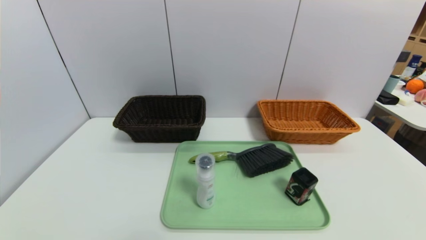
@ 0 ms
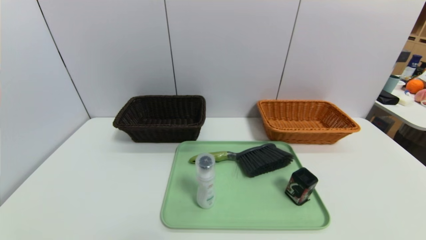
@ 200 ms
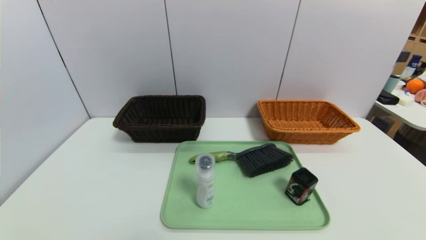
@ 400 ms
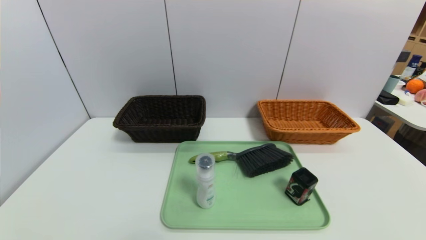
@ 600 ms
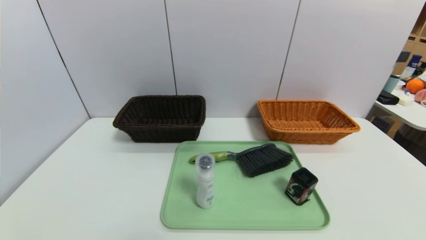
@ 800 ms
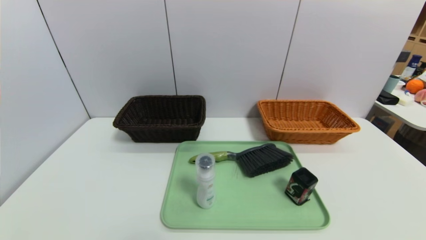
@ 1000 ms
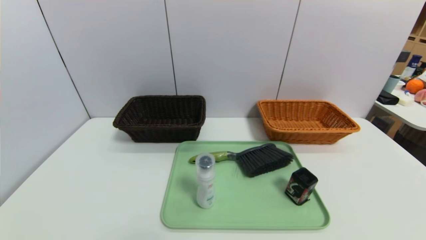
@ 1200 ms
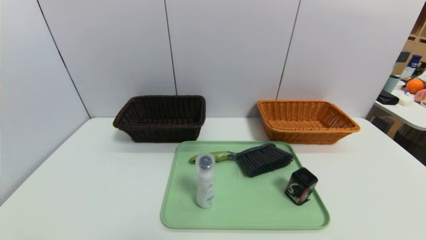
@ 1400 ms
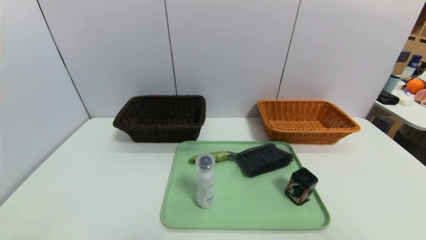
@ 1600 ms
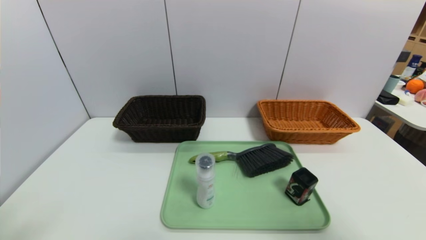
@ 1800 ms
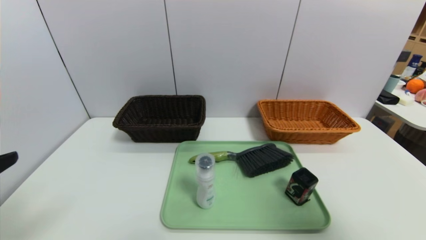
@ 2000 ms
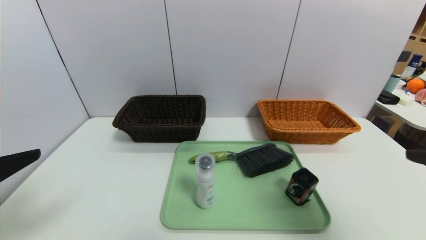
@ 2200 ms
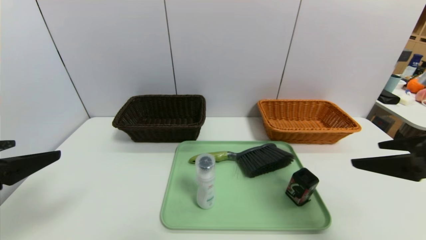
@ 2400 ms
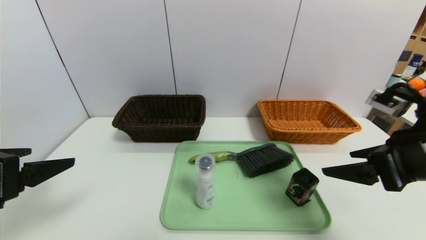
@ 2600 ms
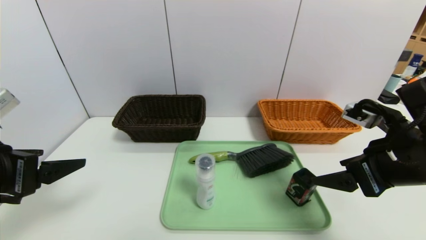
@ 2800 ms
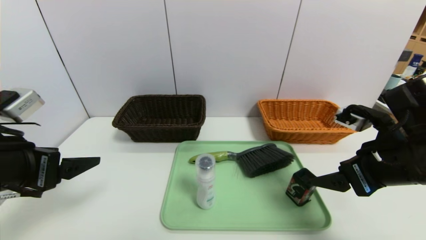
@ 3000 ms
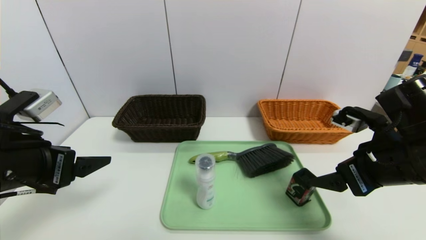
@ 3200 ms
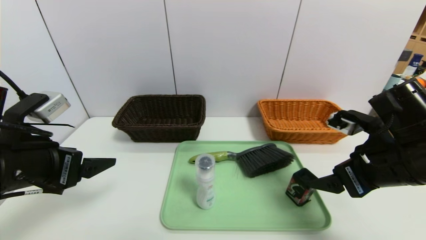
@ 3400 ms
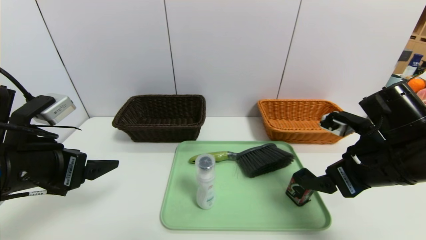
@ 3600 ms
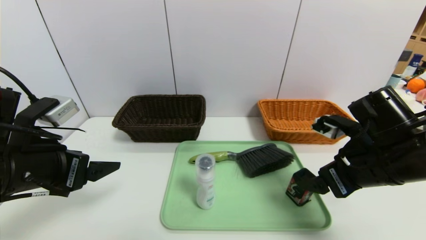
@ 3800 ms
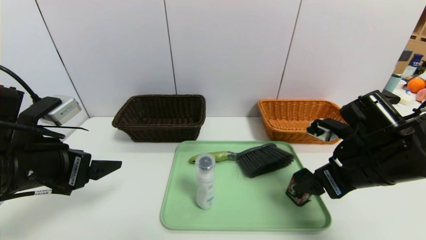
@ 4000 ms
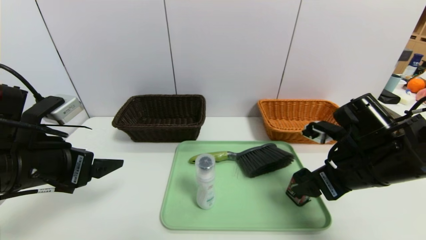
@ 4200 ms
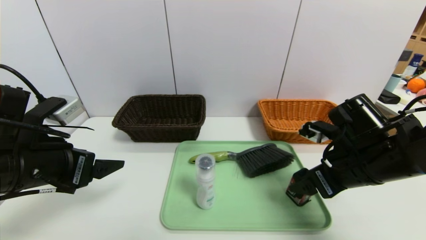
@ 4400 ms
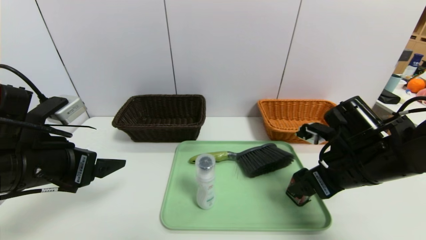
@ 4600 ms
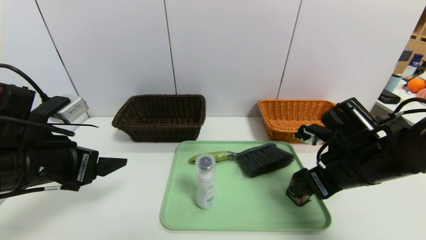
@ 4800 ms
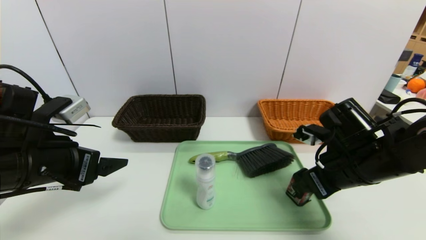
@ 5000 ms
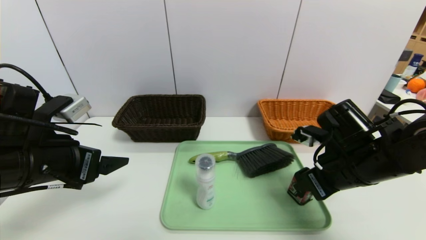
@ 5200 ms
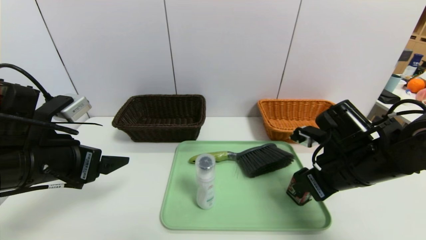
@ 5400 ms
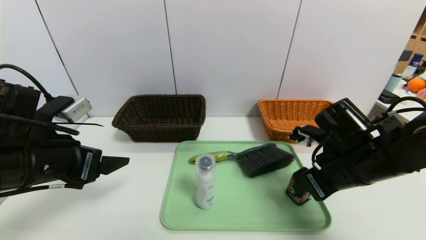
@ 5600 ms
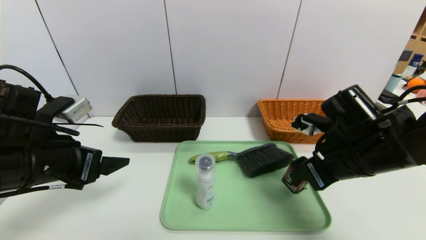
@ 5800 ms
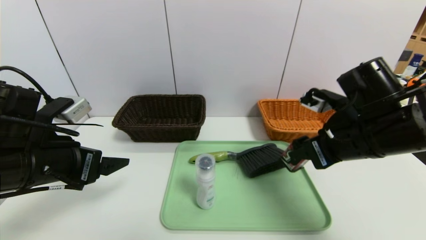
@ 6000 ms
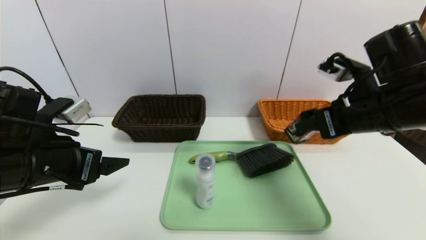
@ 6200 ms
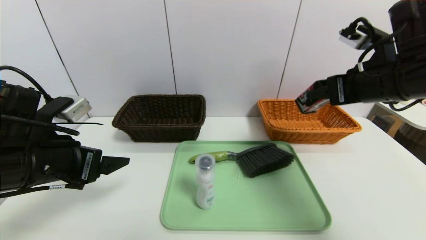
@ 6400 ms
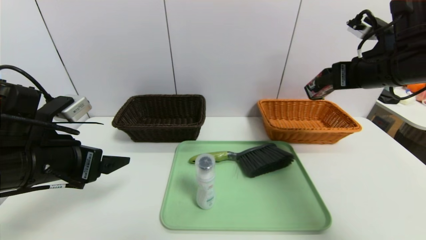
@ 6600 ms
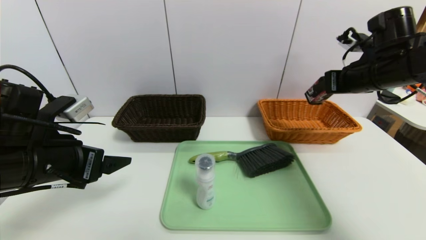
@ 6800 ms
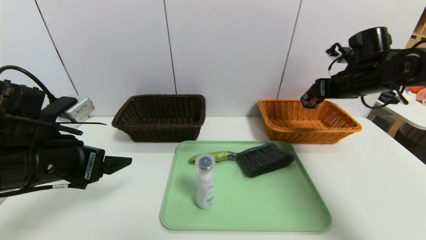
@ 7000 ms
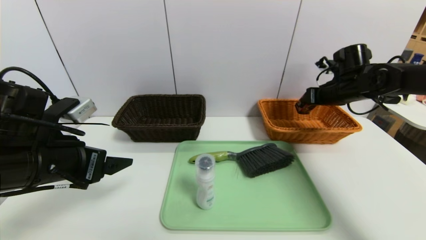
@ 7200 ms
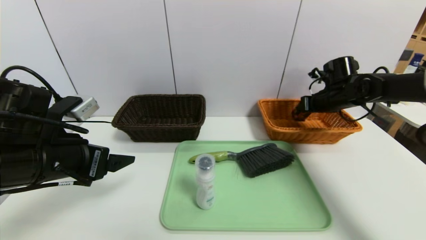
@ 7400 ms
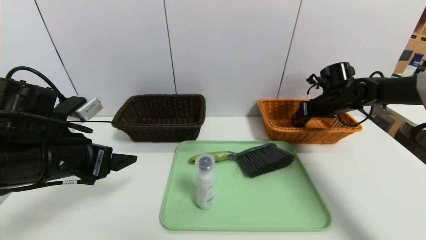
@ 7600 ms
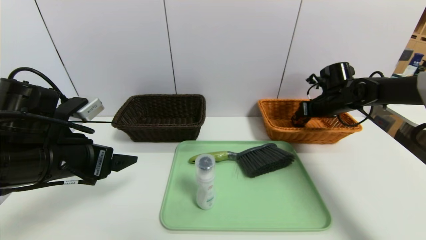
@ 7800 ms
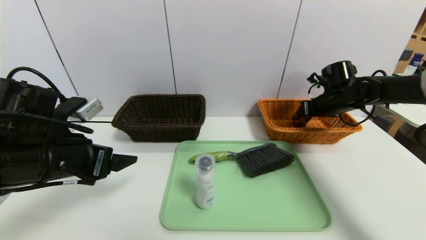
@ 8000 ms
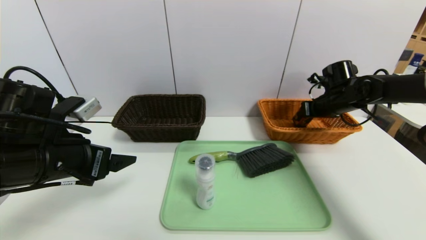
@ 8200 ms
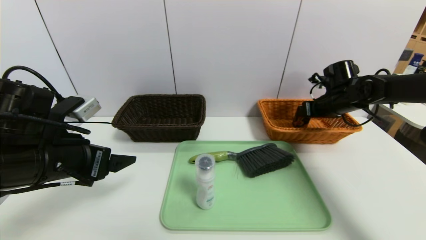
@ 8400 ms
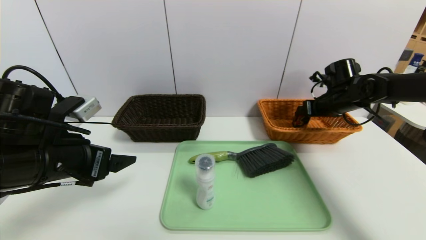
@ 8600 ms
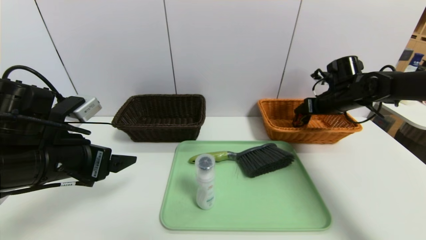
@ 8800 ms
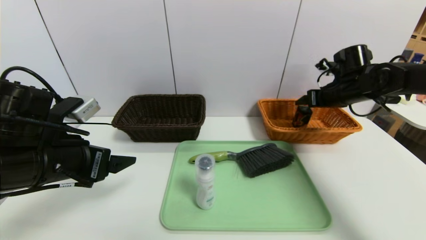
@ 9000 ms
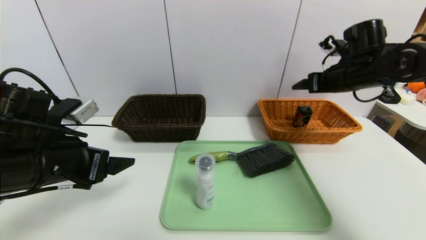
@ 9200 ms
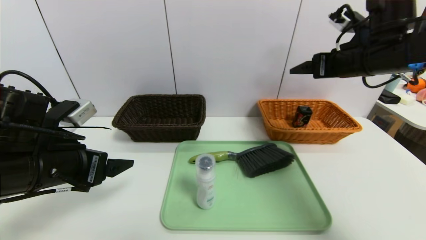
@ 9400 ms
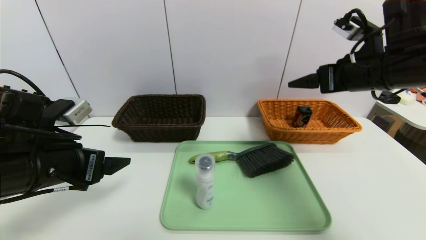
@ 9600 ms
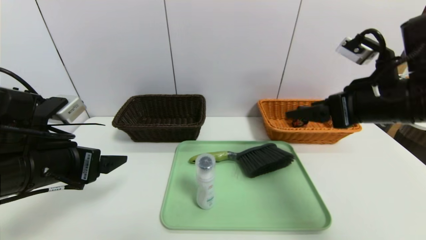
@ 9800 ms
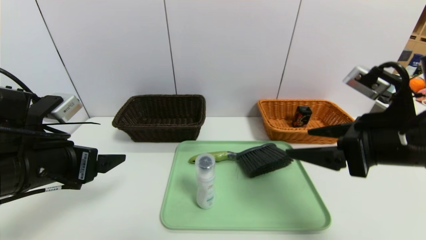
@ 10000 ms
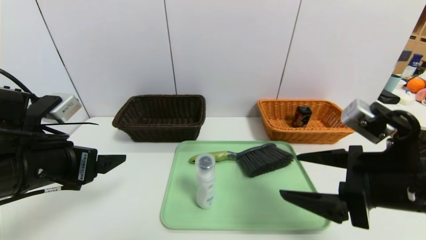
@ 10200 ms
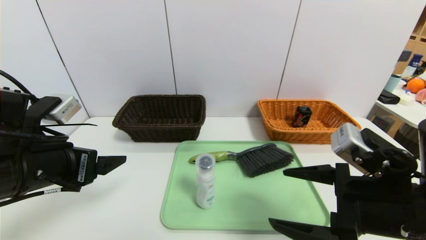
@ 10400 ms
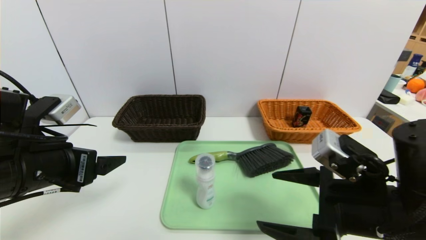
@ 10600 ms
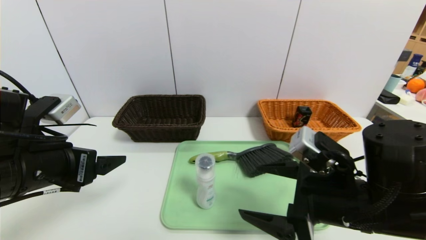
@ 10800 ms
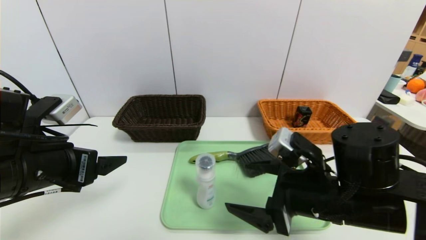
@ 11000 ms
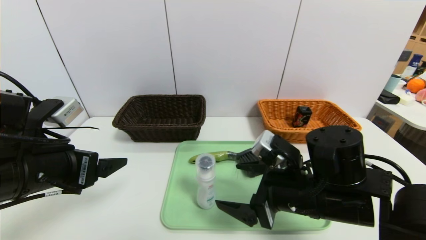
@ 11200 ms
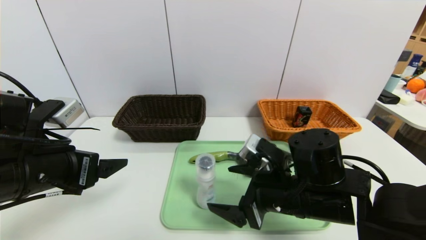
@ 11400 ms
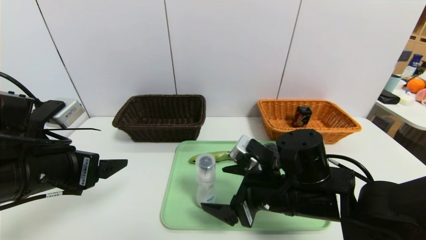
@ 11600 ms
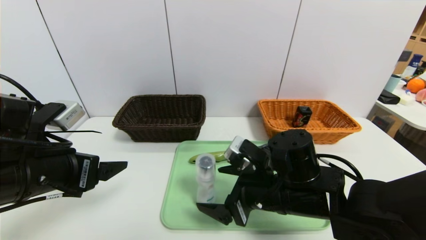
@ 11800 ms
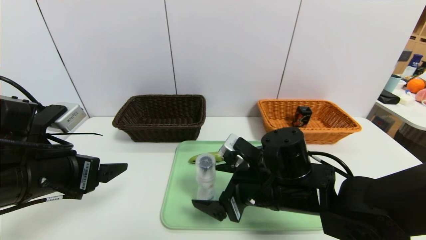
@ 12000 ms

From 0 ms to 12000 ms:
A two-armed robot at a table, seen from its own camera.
Task of the whole recording: place the food in the right basket with the right gripper, and place the non food items in the left basket with the left gripper.
Step, from 0 ms to 9000 ms: Grasp the square chewing gum and put it in the right basket.
From 1600 ms to 3000 ms: The left gripper travels forward by roughly 15 cm, while the right gripper goes some 25 cm forward and downward.
From 3000 ms to 4400 ms: The right gripper shifts by roughly 5 cm.
From 4400 ms to 6000 ms: The right gripper heads upward, covering roughly 5 cm, and closes up.
From 6000 ms to 7600 ms: The right gripper heads forward and to the right, covering about 25 cm.
From 7600 ms to 9000 ms: The right gripper shifts roughly 5 cm upward, and opens its fingers.
From 9000 ms to 10400 ms: The right gripper travels backward by about 30 cm.
From 10400 ms to 12000 ms: The right gripper heads to the left, forward and downward, covering roughly 15 cm.

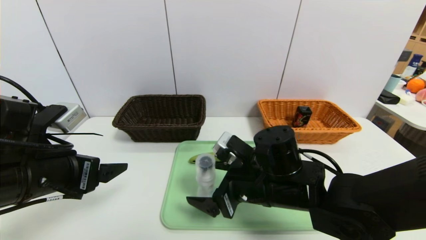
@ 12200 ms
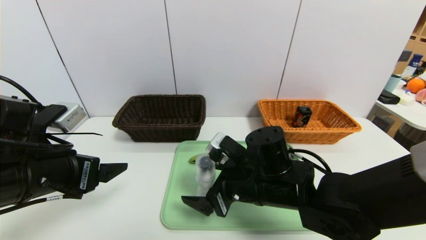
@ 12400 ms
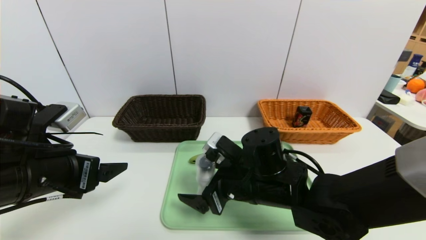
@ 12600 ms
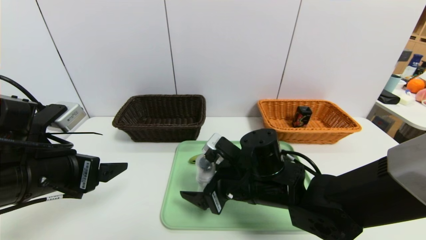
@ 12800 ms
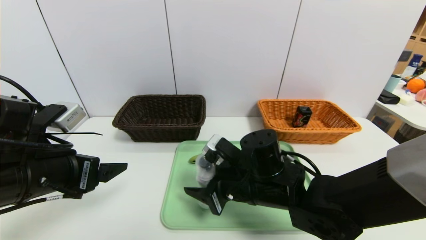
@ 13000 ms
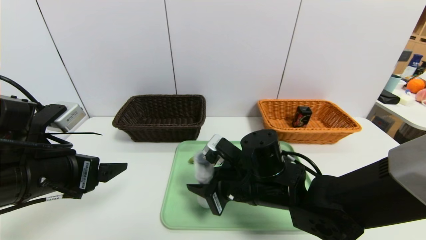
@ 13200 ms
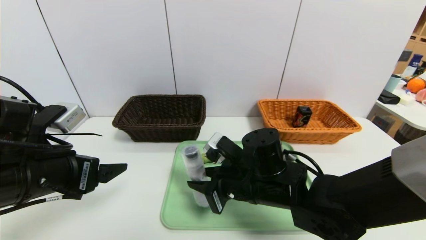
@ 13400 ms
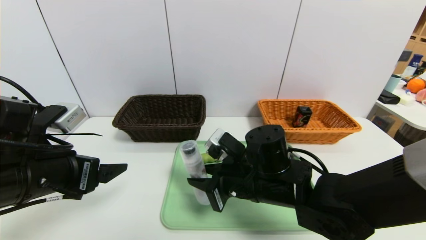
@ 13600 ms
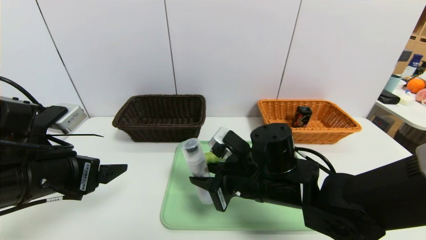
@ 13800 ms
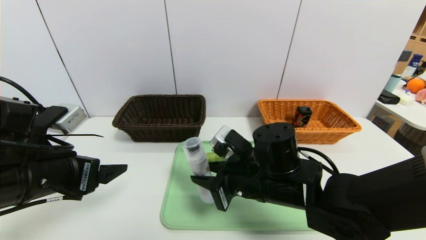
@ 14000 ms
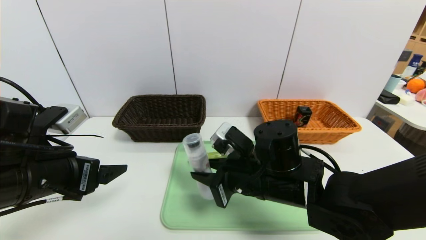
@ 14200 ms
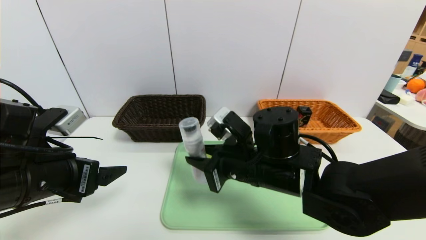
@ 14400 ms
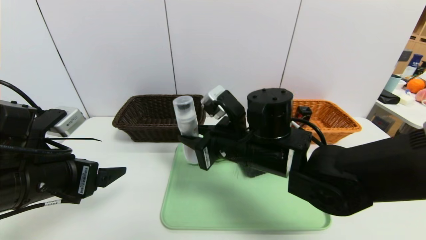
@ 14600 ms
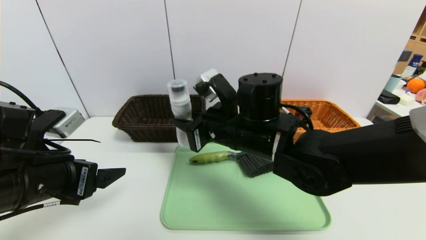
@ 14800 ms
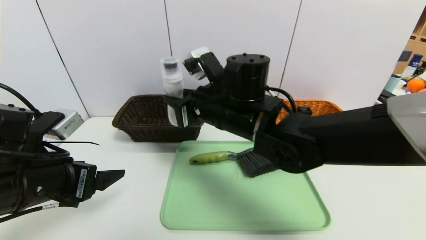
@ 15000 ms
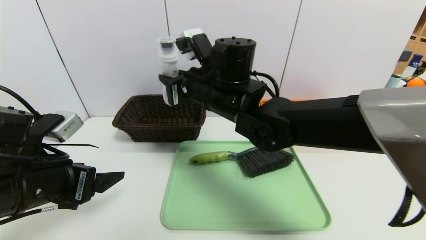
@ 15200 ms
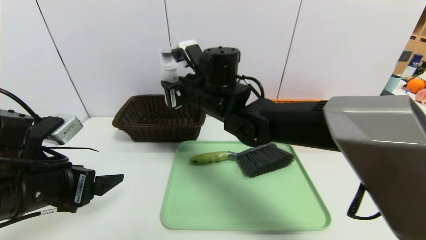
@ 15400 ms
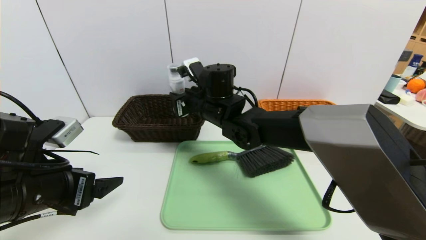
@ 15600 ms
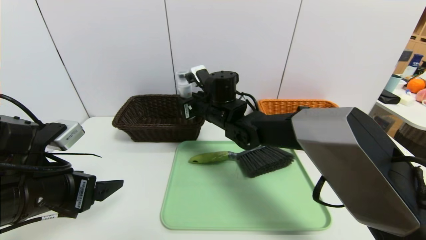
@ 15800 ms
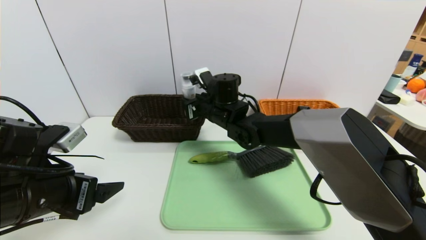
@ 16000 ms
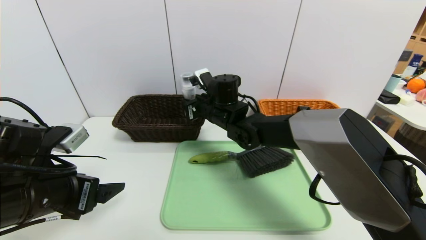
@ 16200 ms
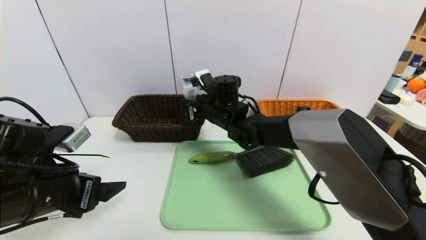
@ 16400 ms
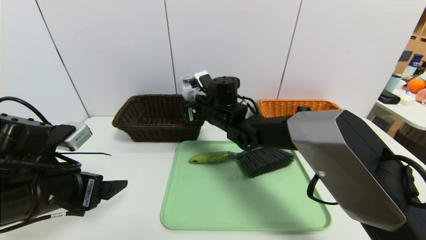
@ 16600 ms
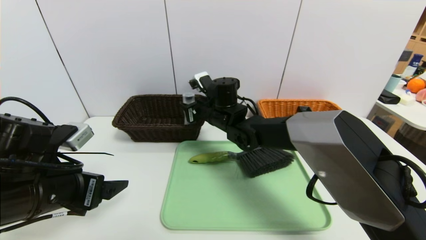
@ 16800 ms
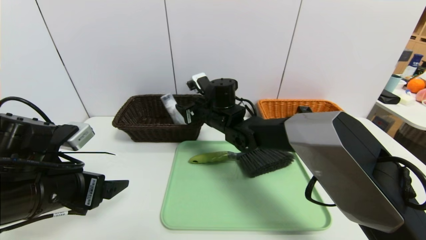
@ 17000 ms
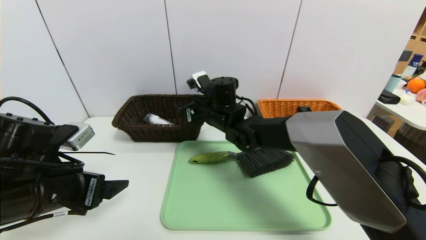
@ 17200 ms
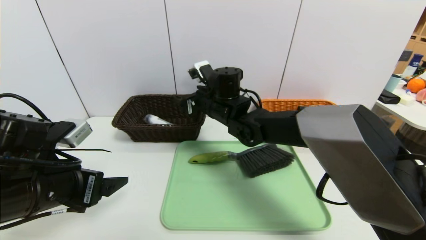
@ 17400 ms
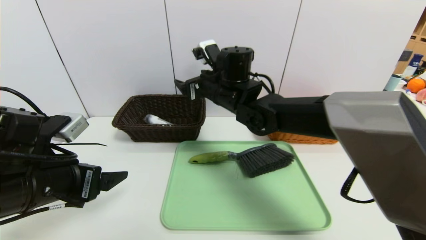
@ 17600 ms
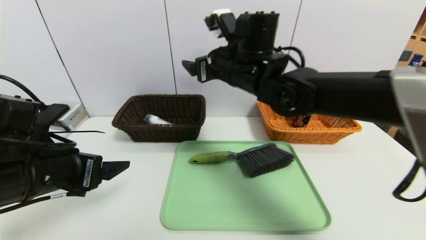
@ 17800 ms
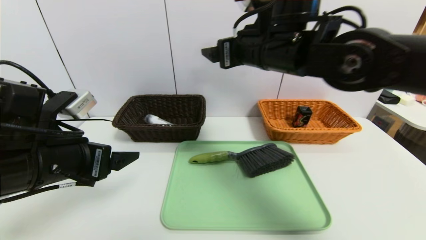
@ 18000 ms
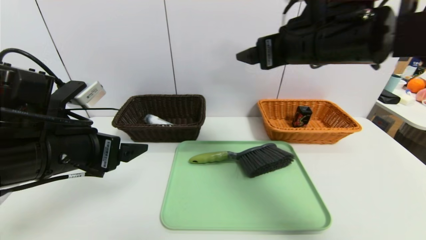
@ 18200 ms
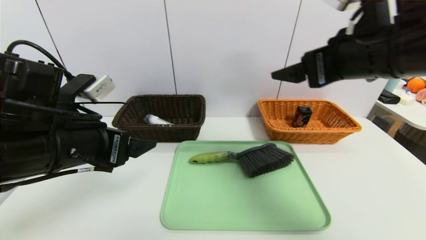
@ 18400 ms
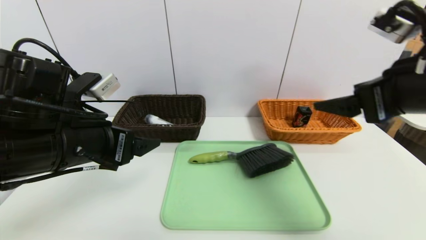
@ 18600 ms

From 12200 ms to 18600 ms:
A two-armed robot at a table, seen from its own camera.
Task of the whole recording: place the food in the right basket with the right gripper, and place the non food items in the left basket with the left gripper.
From 12200 ms to 13800 ms: The right gripper closes up.
From 13800 ms to 15400 ms: The right gripper heads forward, upward and to the left, covering approximately 20 cm.
From 15400 ms to 17000 ms: The right gripper goes approximately 10 cm downward and forward, and opens its fingers.
From 17000 ms to 18600 ms: The right gripper travels to the right, backward and upward by about 35 cm, and opens, while the left gripper goes about 5 cm upward.
